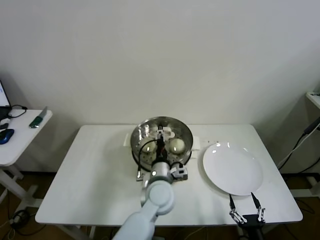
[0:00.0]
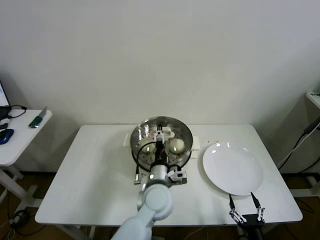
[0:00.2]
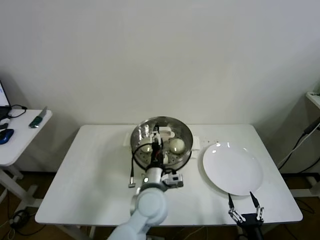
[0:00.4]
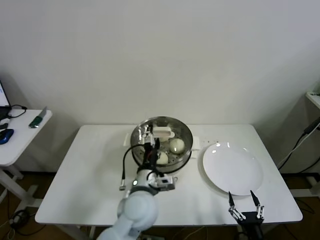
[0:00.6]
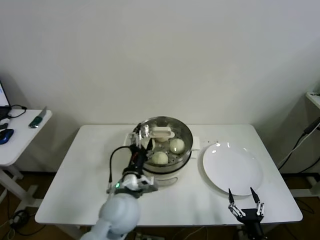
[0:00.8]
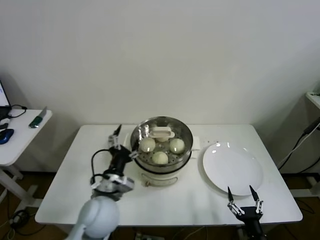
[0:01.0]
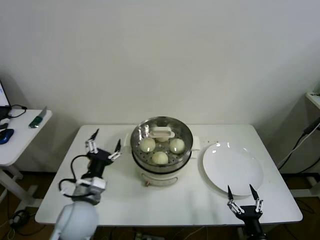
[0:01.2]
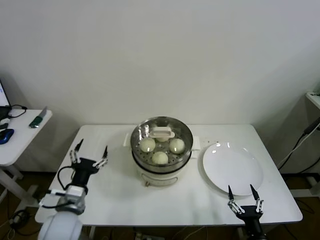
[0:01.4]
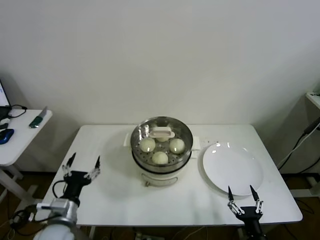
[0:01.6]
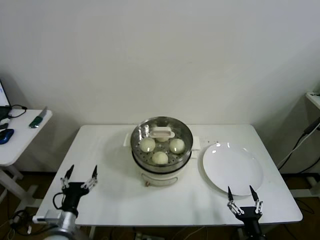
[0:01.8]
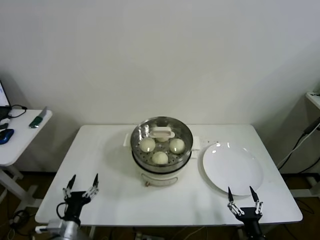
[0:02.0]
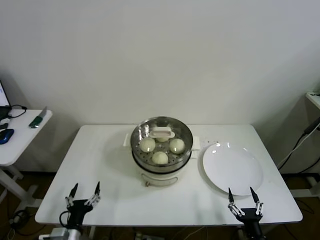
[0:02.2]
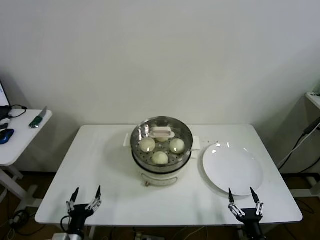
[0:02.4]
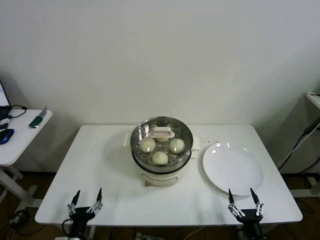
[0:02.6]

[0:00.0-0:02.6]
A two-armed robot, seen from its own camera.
0:00.0 to 0:01.2: The left gripper moves to the left, about 20 cm, and opens its fingers.
0:01.2 to 0:02.6: The left gripper heads downward, backward and to the left, covering about 25 cm.

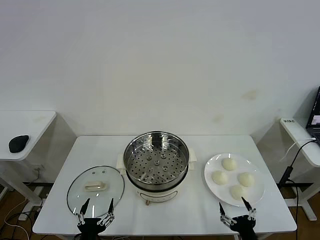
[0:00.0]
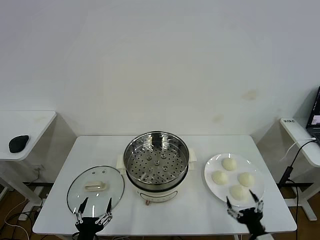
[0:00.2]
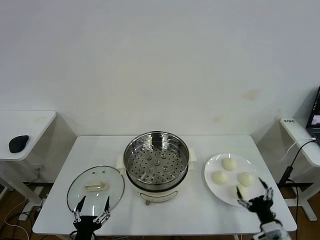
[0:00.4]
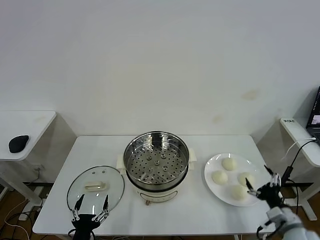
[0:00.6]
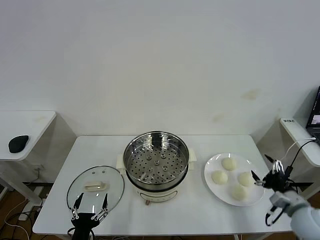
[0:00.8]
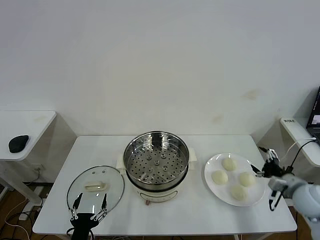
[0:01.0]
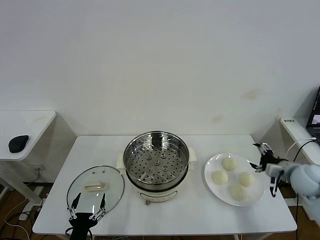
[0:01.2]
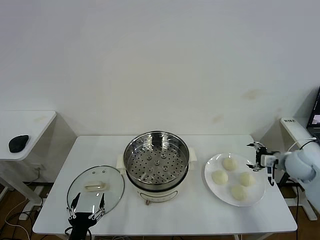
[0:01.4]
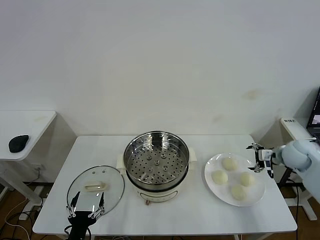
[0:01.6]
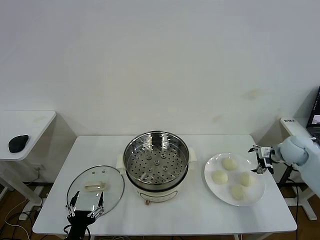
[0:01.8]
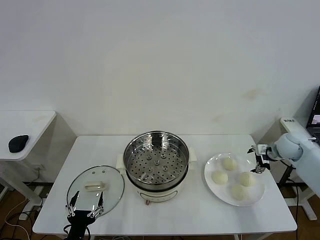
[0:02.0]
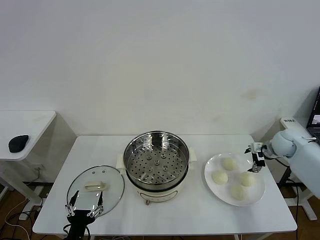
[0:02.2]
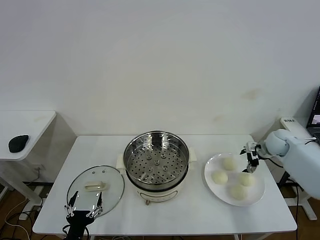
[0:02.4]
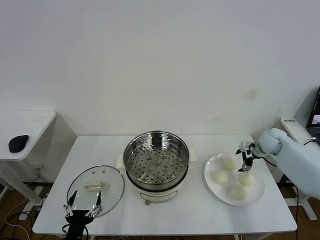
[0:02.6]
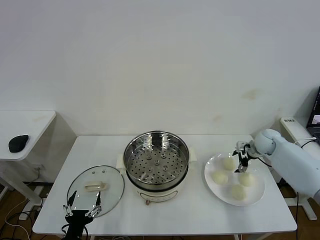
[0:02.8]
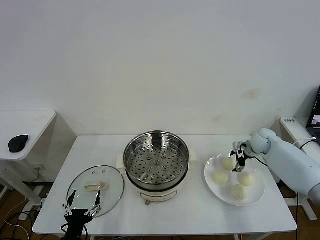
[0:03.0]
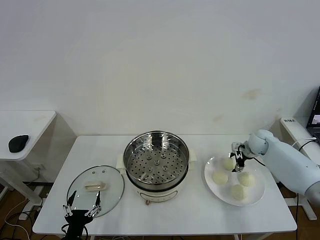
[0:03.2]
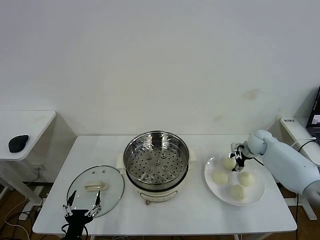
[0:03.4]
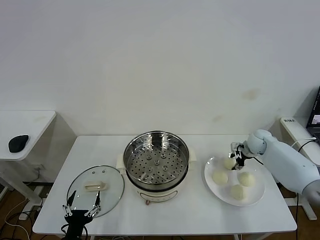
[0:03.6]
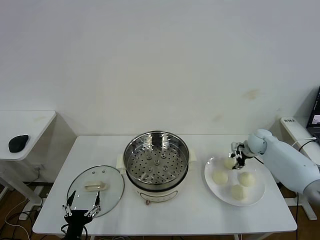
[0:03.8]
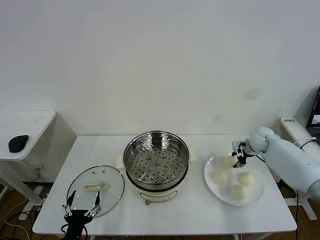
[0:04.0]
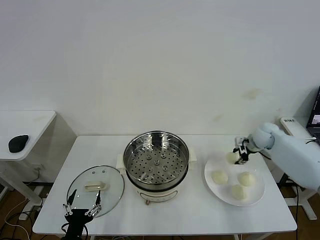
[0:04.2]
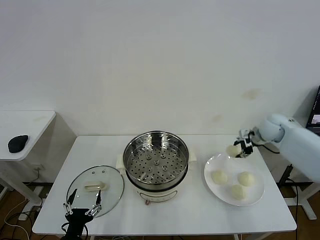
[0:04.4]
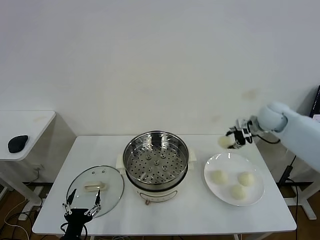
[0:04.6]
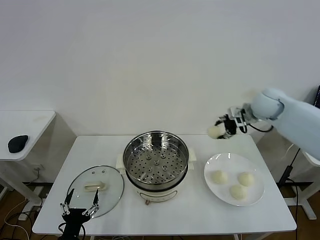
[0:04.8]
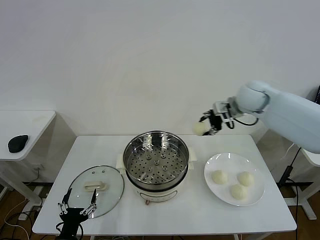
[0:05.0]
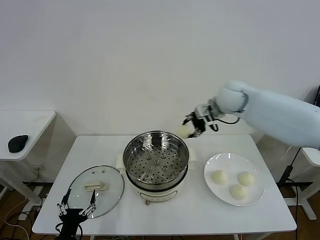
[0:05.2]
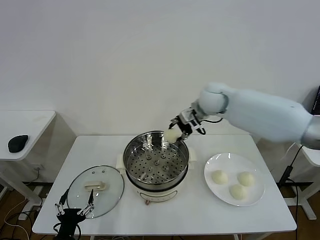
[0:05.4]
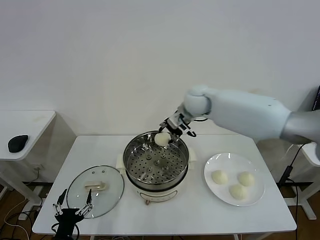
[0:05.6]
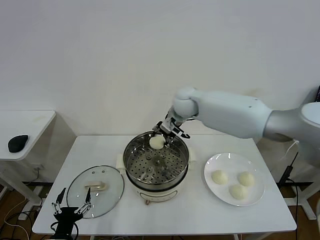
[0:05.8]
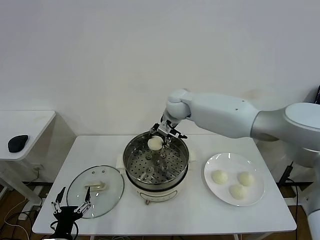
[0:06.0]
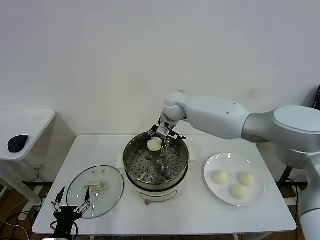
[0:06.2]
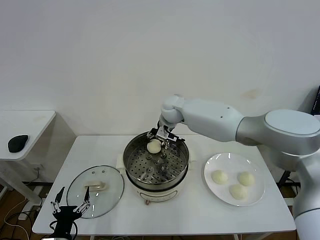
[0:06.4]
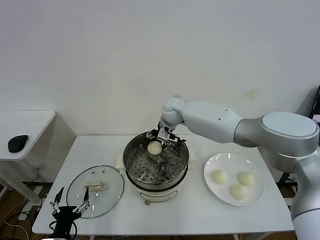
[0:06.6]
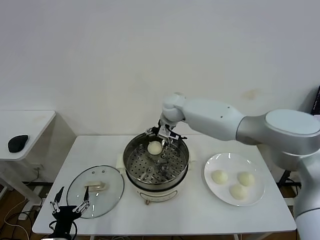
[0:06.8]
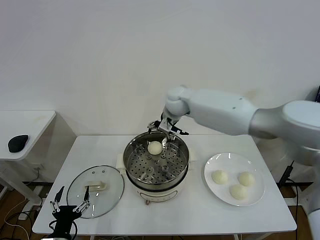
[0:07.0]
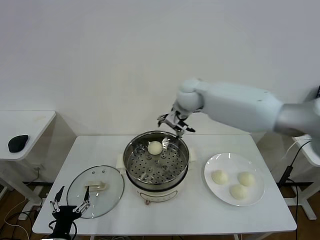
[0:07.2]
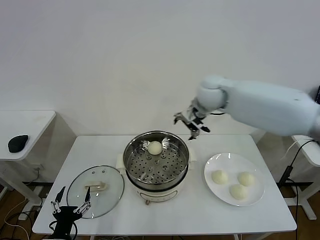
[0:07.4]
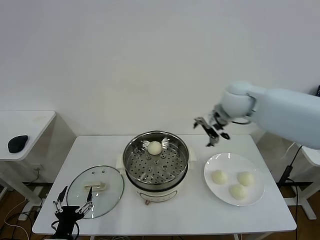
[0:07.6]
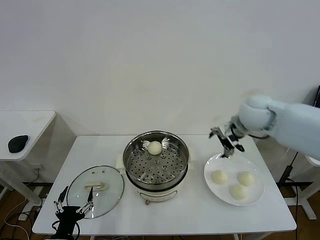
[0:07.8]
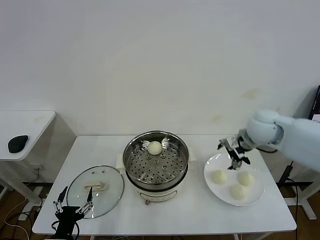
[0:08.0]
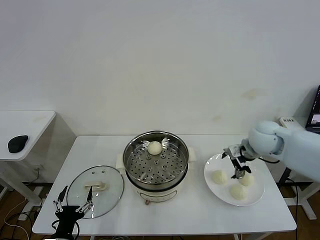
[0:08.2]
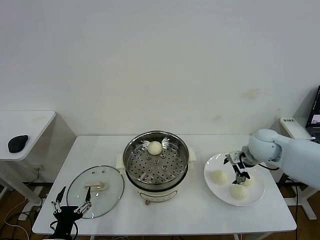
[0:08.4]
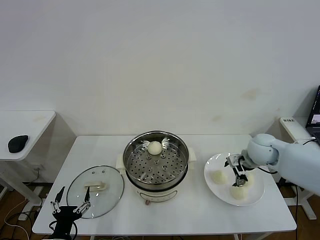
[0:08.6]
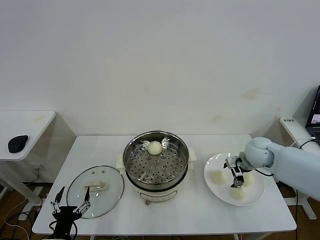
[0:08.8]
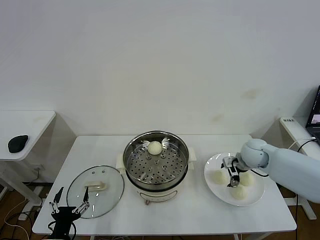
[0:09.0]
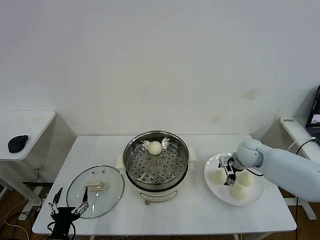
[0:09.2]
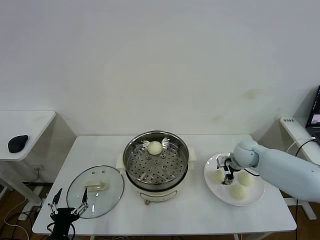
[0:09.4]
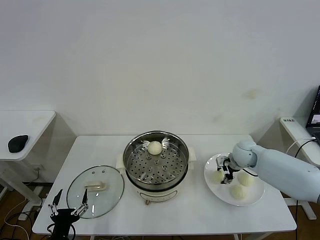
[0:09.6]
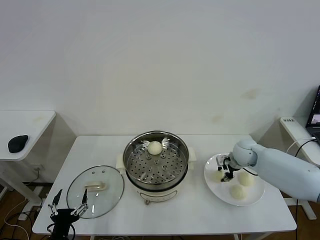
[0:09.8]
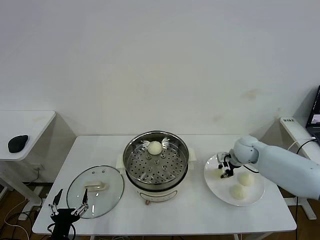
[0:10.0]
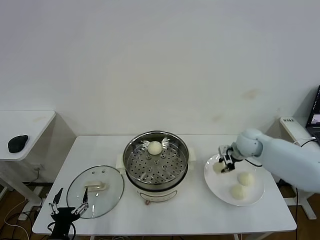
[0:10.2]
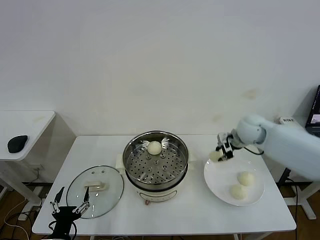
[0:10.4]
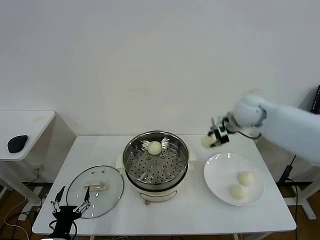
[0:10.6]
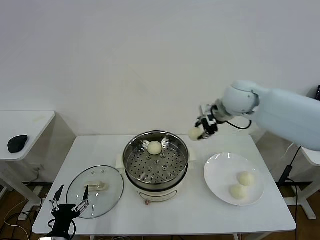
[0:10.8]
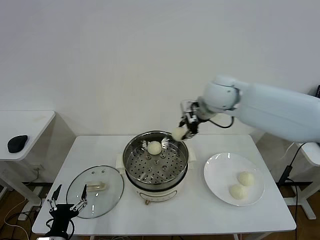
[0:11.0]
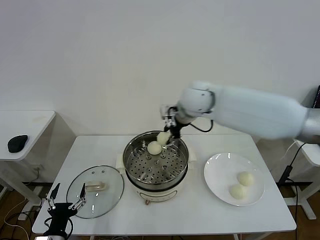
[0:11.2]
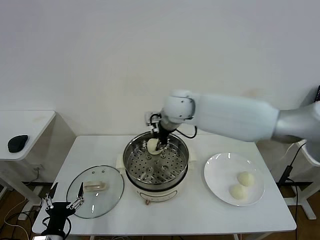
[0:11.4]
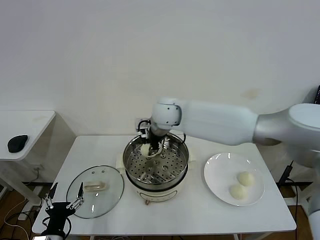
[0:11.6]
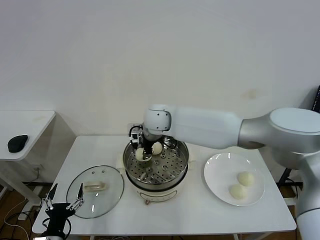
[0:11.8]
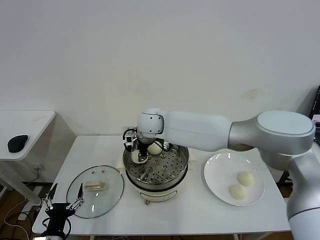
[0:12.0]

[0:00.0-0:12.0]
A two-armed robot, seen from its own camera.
Step, 0:00.0 to 0:03.6: Grasp the baozi in the plate with right gripper.
Step, 0:03.8 to 0:06.6: Place the baozi on the steamer with right gripper.
Step, 0:06.8 to 0:09.8: Grasp the baozi in the plate with right gripper.
0:01.6 to 0:03.0: The right gripper is displaced forward, to the left and downward by approximately 15 cm.
0:03.0 to 0:04.4: The right gripper travels upward by roughly 15 cm, and closes its fingers.
0:04.4 to 0:06.0: The right gripper heads to the left, covering approximately 35 cm.
0:06.0 to 0:07.6: The right gripper travels to the right and backward by about 25 cm, and opens.
0:07.6 to 0:09.0: The right gripper moves downward, about 20 cm.
0:09.0 to 0:10.4: The right gripper goes roughly 15 cm upward, and closes its fingers.
0:10.4 to 0:12.0: The right gripper travels to the left by about 35 cm.

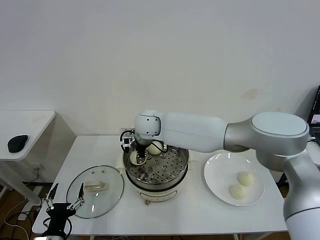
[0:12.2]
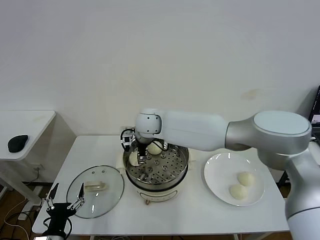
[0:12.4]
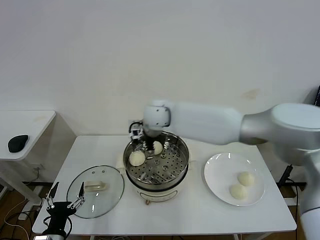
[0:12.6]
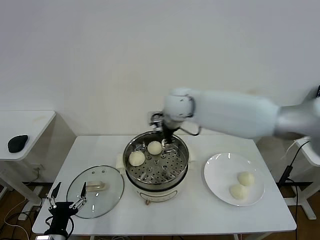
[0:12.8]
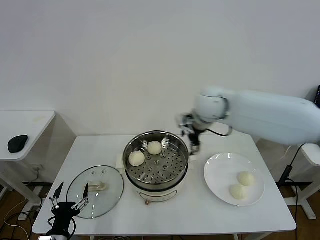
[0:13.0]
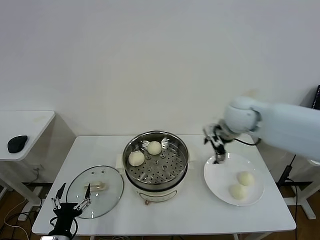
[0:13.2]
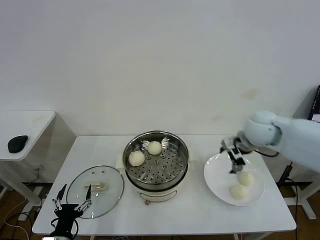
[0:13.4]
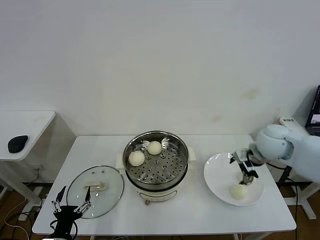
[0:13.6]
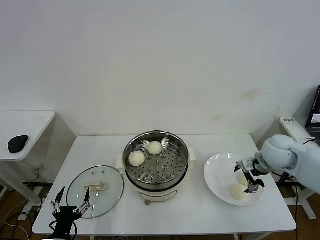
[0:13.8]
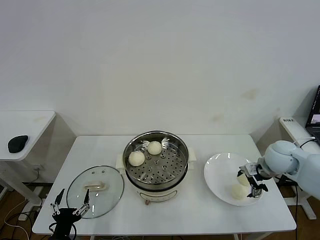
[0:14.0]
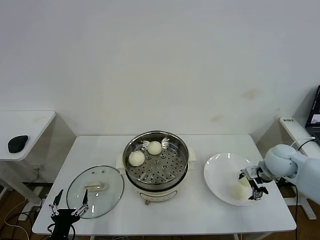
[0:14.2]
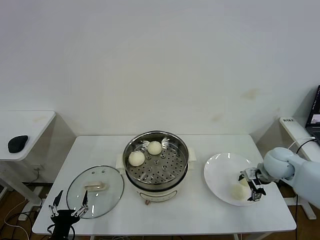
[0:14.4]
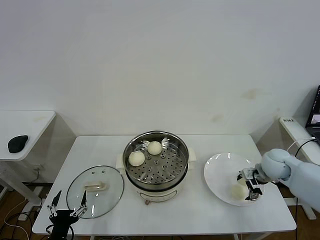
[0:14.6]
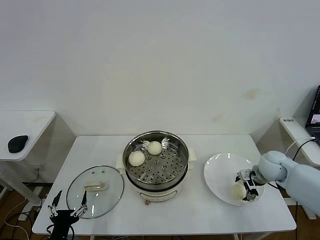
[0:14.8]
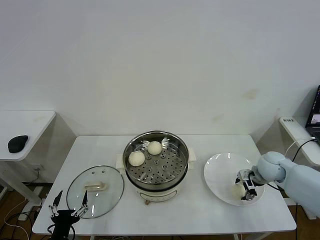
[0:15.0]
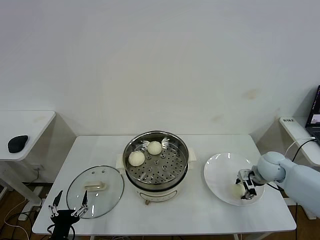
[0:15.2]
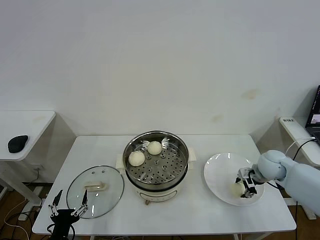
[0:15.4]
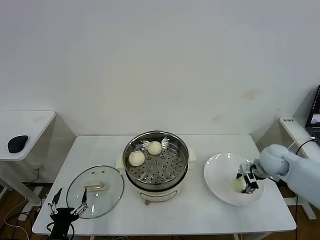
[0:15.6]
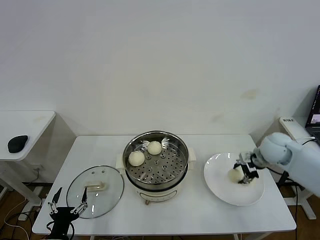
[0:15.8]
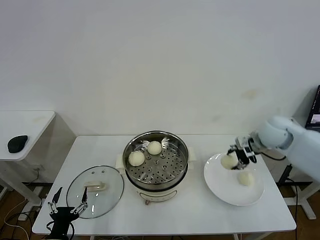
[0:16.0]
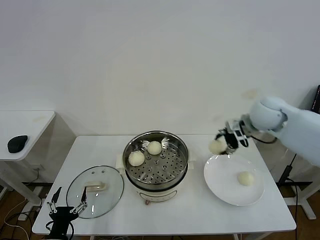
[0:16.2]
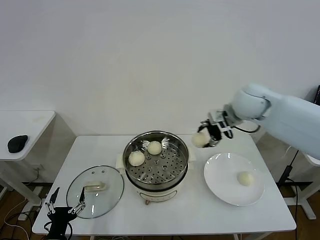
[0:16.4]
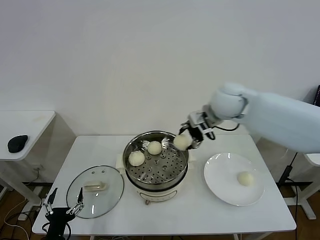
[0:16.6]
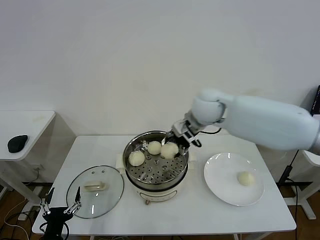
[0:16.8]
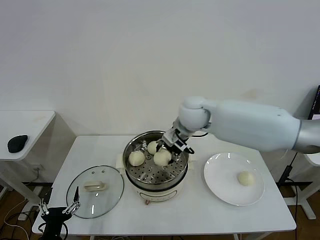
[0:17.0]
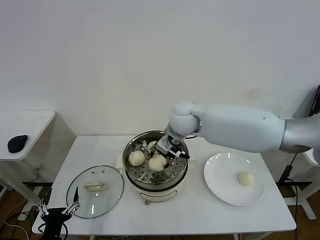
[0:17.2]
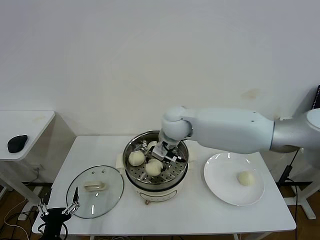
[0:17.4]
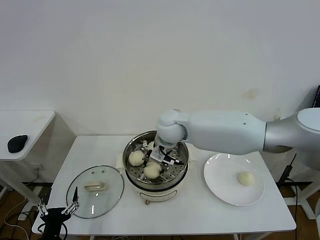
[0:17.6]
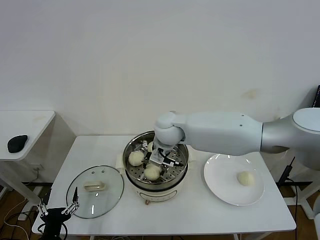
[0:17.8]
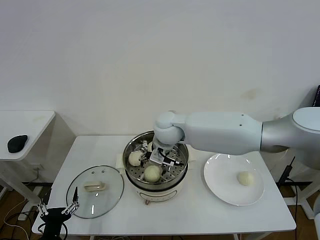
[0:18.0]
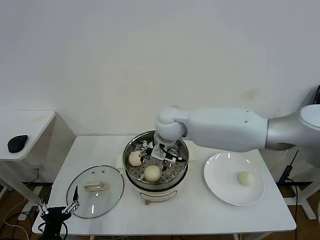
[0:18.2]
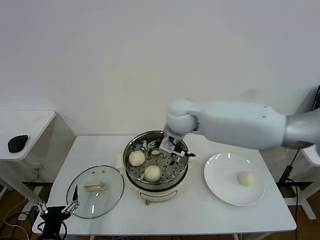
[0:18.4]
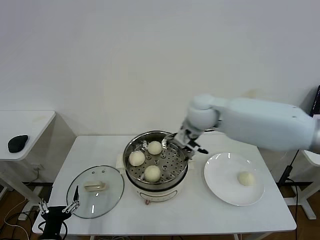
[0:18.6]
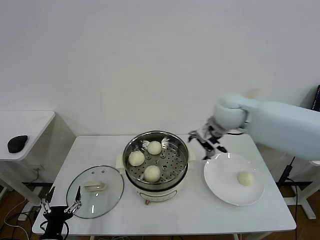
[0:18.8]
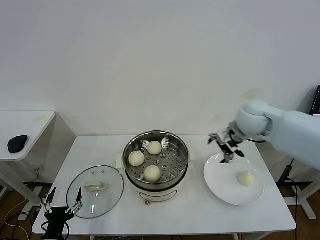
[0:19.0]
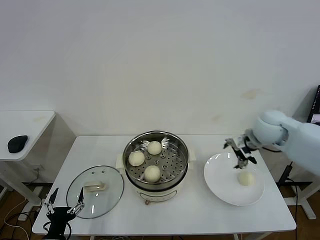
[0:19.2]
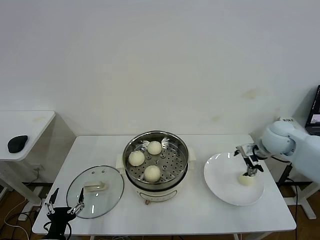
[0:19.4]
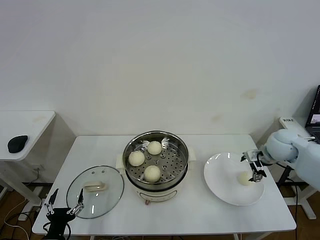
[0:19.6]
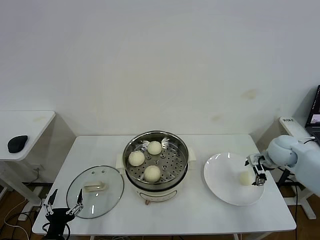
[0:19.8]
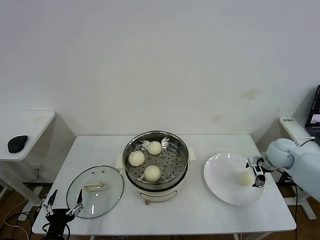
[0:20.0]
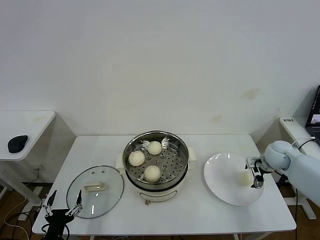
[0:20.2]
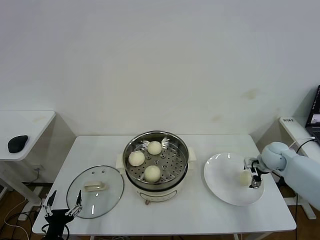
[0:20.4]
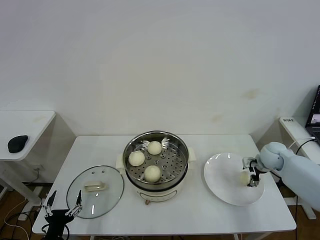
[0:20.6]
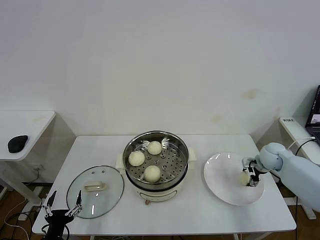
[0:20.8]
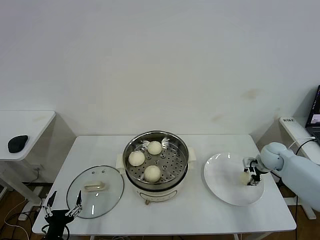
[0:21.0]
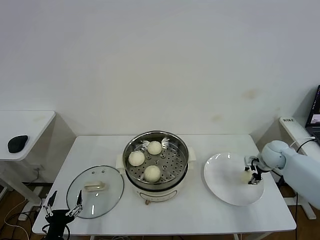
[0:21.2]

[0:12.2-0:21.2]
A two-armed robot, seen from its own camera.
Step, 0:12.6 to 0:15.6: Grasp the baozi in the plate with right gripper.
Step, 0:15.8 to 0:18.0: Place the baozi on the steamer with right gripper.
Step, 0:18.2 to 0:21.0: Grasp the baozi in the plate with right gripper.
0:12.2 to 0:13.8: The right gripper shifts roughly 40 cm to the right, and opens up.
0:13.8 to 0:15.2: The right gripper shifts roughly 10 cm downward, and closes up.
0:15.2 to 0:16.6: The right gripper shifts about 30 cm to the left and upward.
0:16.6 to 0:18.2: The right gripper is displaced to the left and downward by about 15 cm, and opens up.
0:18.2 to 0:19.8: The right gripper heads to the right, covering about 40 cm.
0:19.8 to 0:21.2: The right gripper ends up approximately 5 cm from where it was, and closes up.
